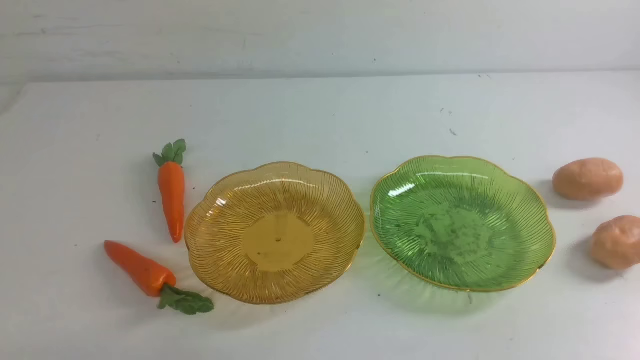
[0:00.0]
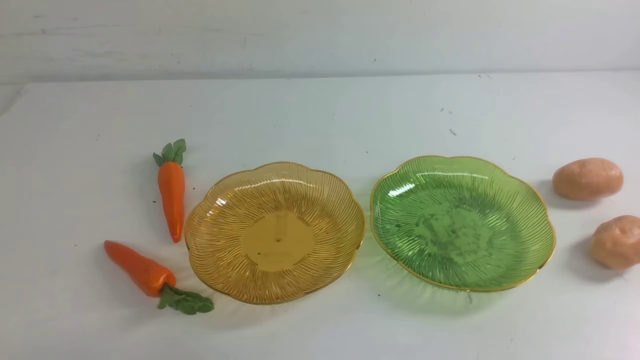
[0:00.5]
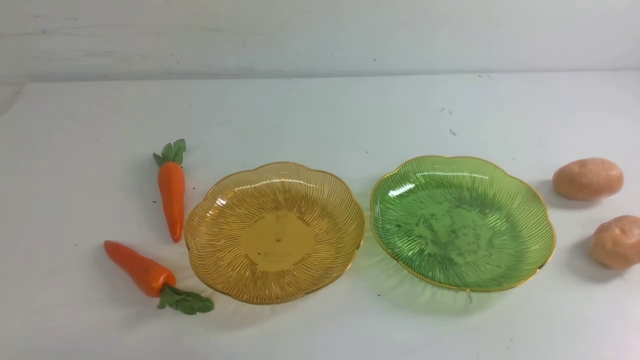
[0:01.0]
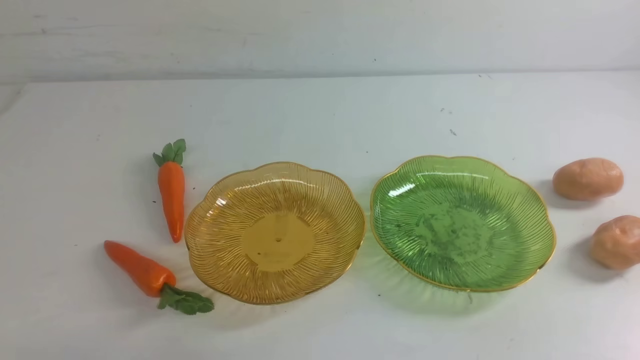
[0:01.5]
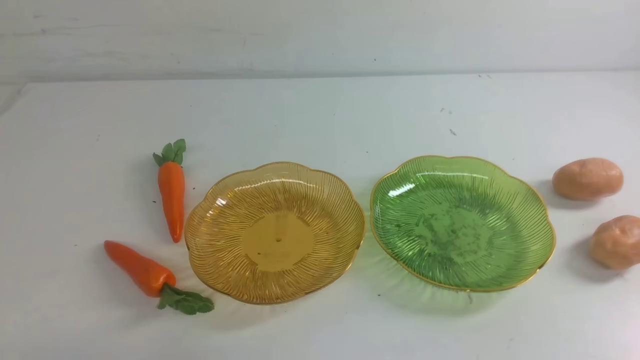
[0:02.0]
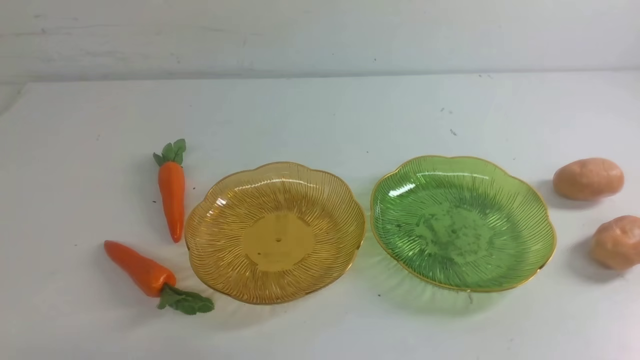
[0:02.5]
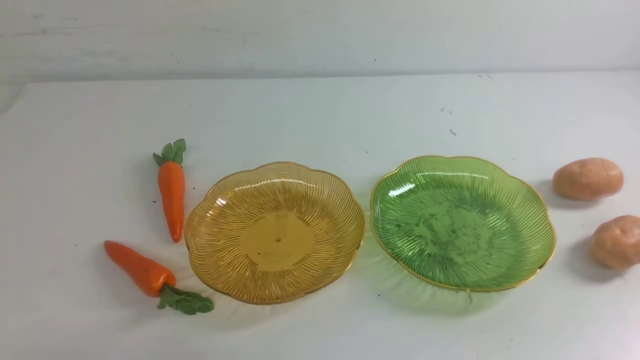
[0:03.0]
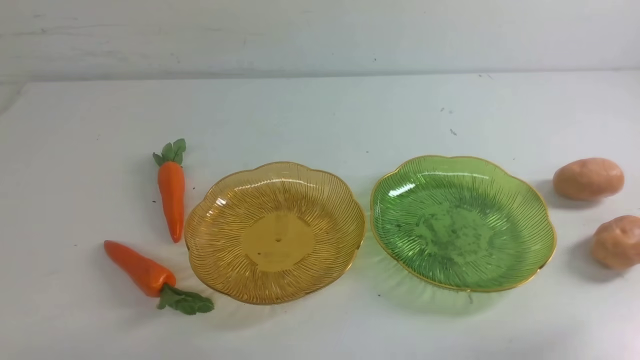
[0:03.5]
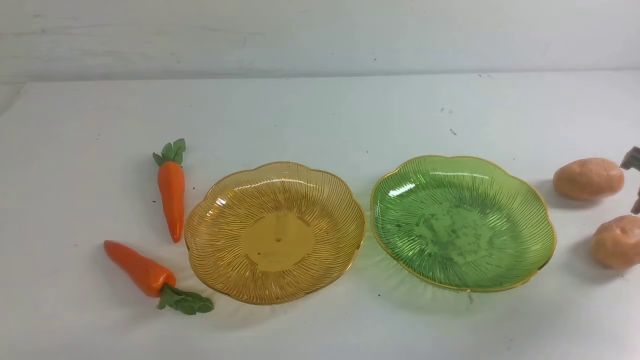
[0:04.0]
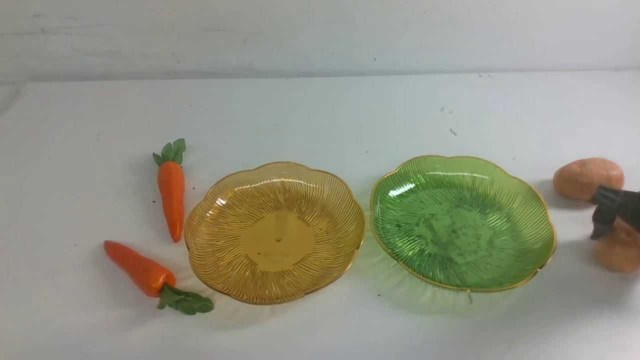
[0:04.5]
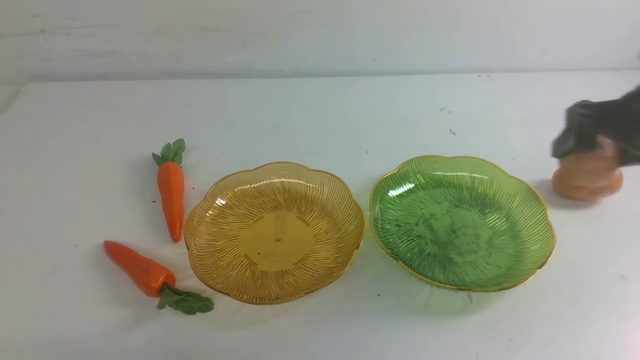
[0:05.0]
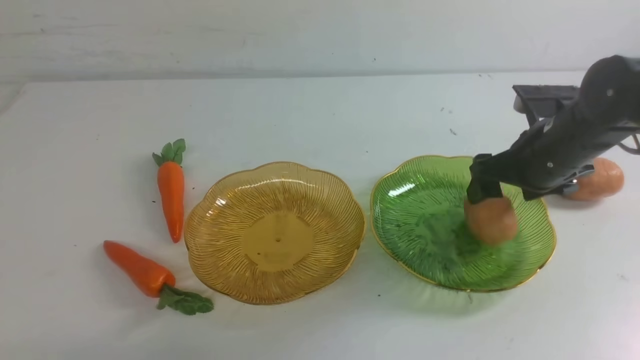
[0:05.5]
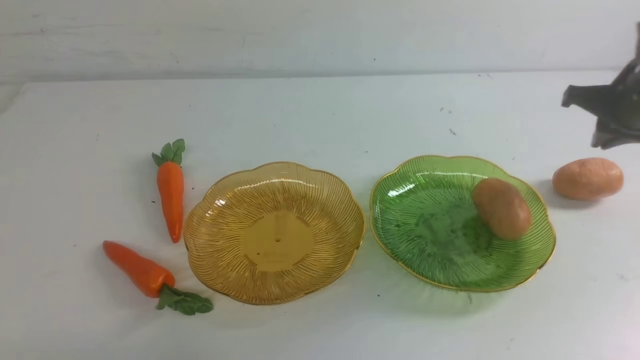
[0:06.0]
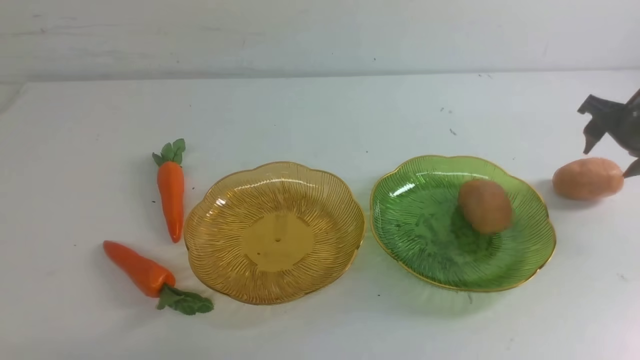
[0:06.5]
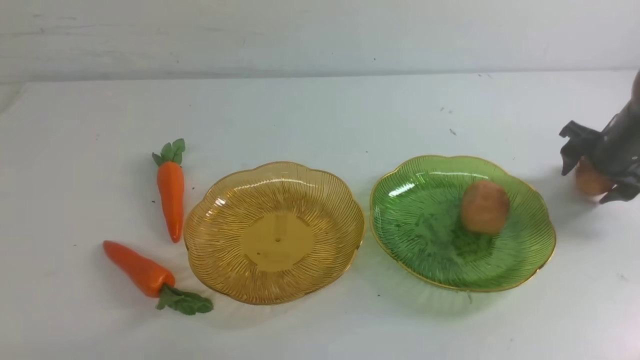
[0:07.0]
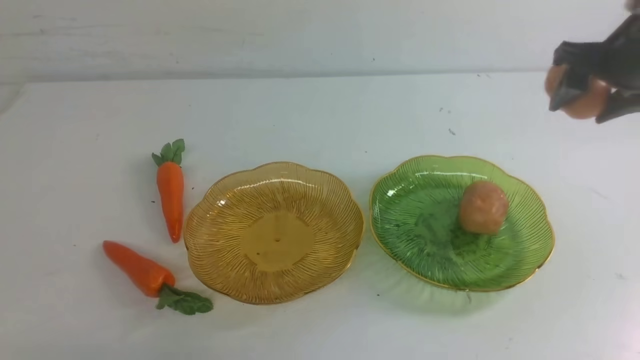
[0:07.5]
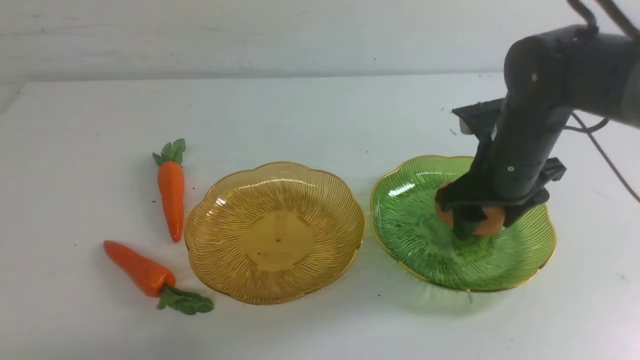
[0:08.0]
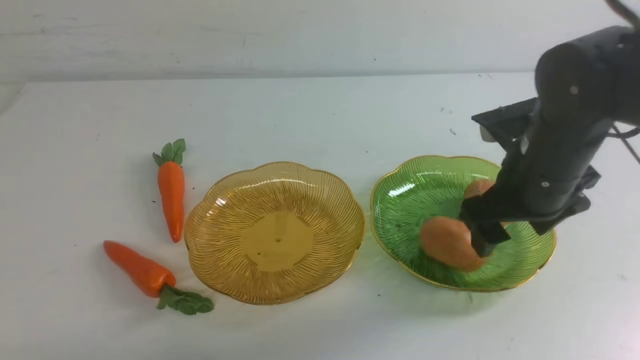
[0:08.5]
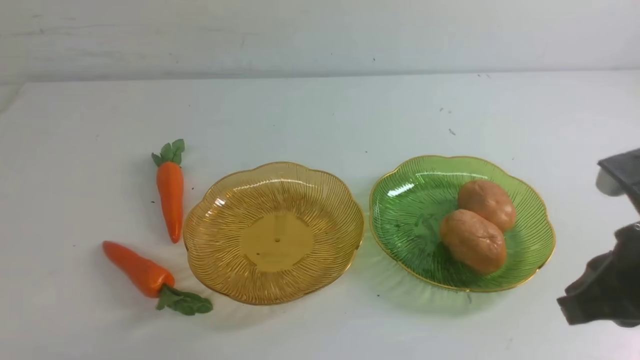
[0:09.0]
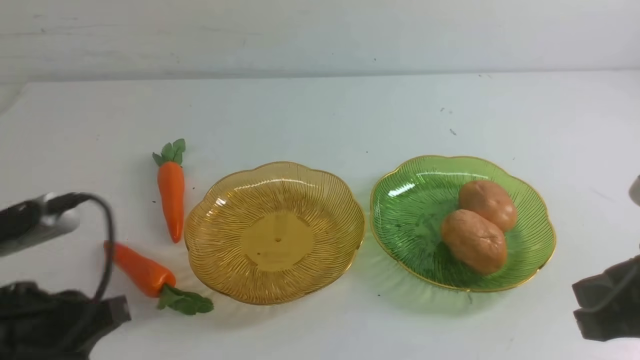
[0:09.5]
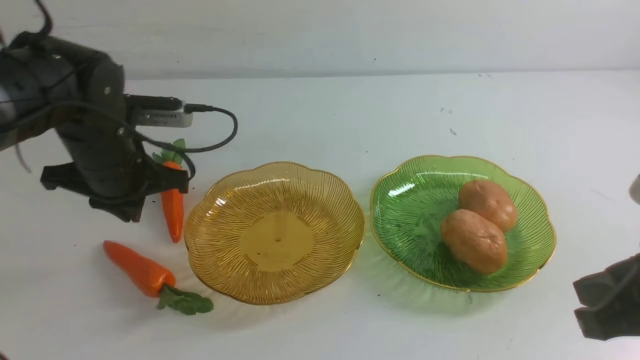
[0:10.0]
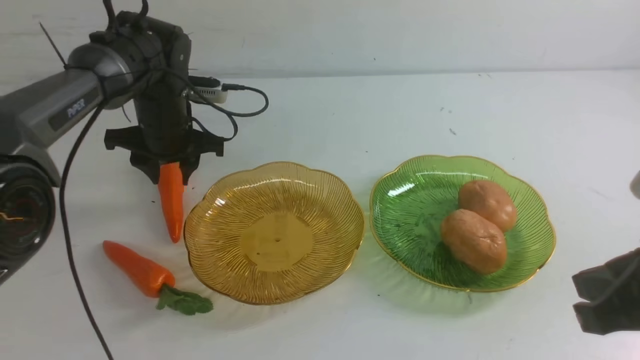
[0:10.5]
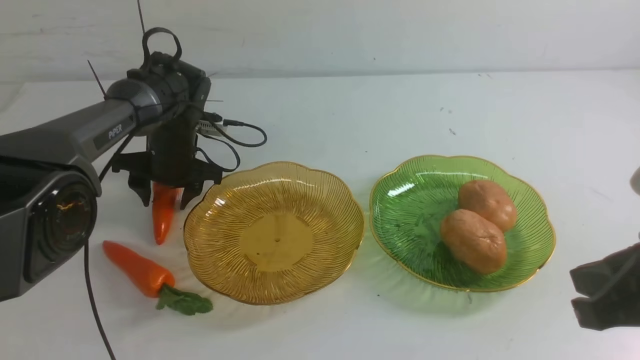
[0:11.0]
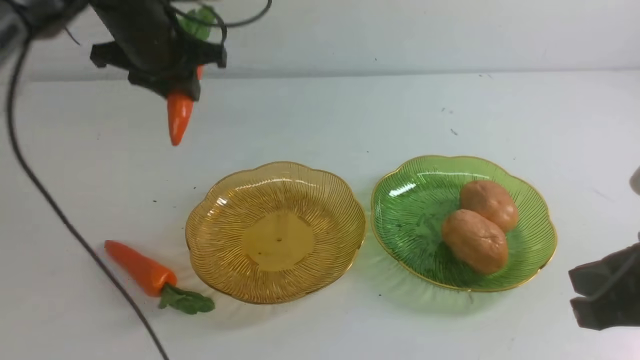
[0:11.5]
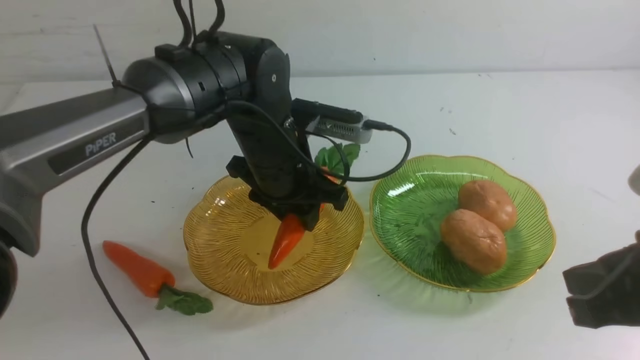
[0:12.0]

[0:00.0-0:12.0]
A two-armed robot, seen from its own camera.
Step, 0:00.0 to 0:08.0: Grab a potato with your right arm and put it on the right plate.
0:02.0 to 0:04.0: The right gripper shifts approximately 25 cm forward, and opens its fingers.
0:04.0 to 0:06.0: The right gripper shifts roughly 10 cm forward and to the left.
0:06.0 to 0:08.0: The right gripper travels to the left by some 15 cm, and opens up.
0:08.0 to 0:10.0: The right gripper moves backward, roughly 20 cm, and closes its fingers. Meanwhile the left gripper heads forward, covering some 35 cm.
0:10.0 to 0:12.0: The left gripper travels to the right by roughly 15 cm, and opens.

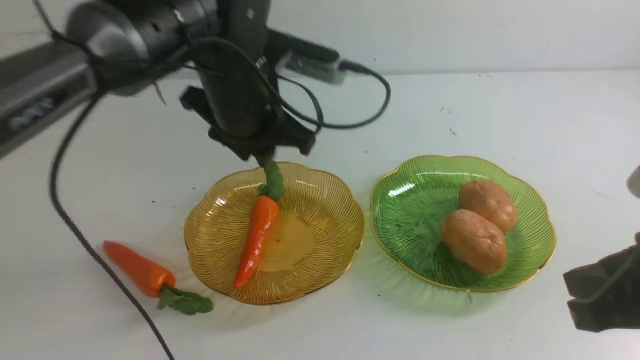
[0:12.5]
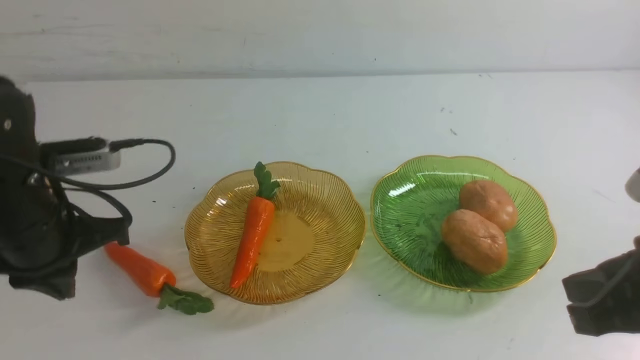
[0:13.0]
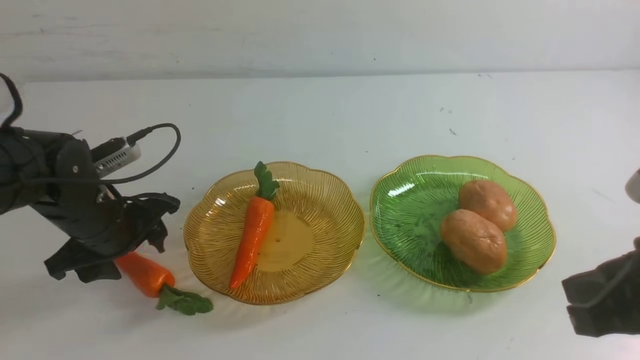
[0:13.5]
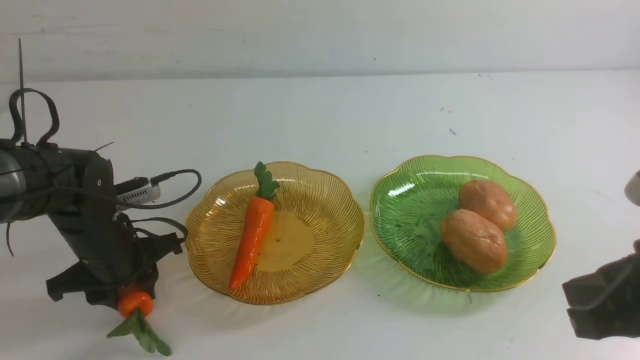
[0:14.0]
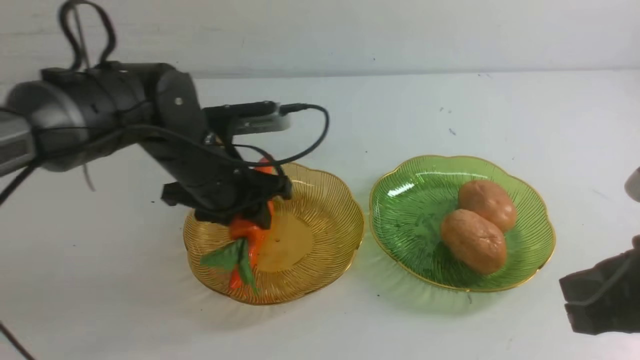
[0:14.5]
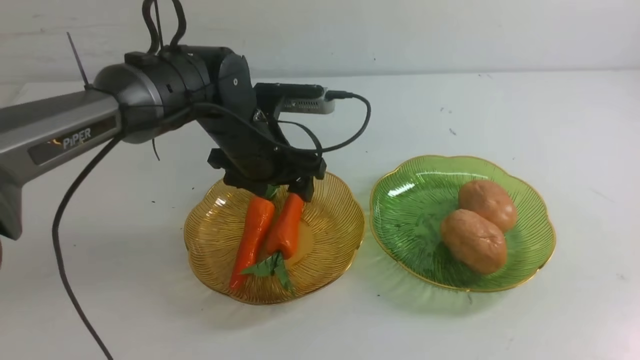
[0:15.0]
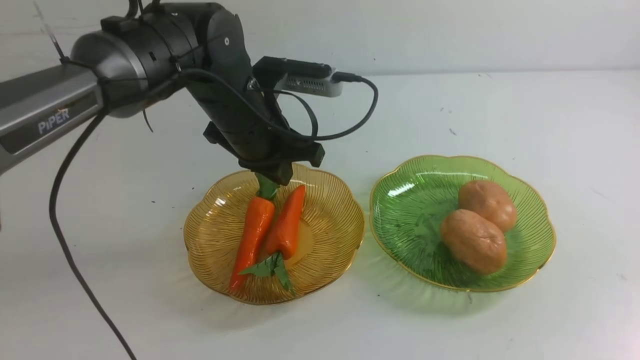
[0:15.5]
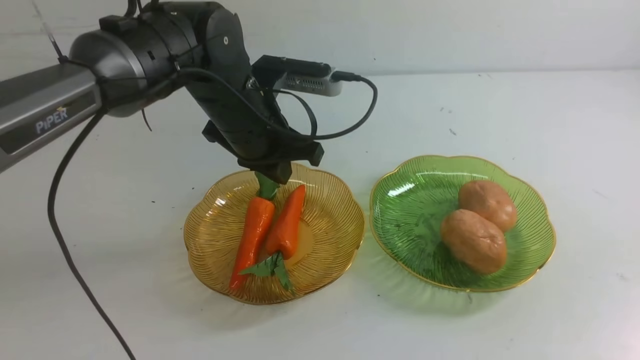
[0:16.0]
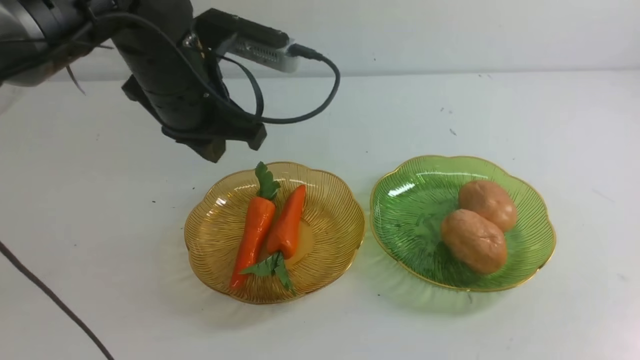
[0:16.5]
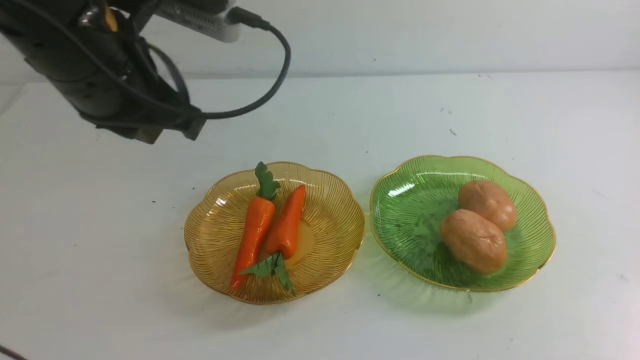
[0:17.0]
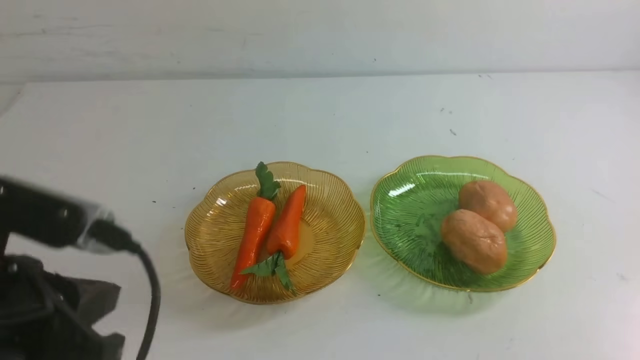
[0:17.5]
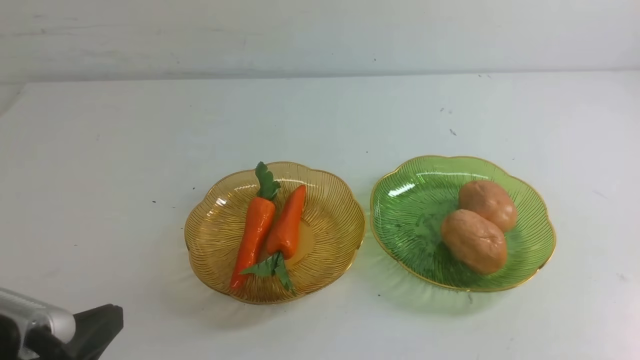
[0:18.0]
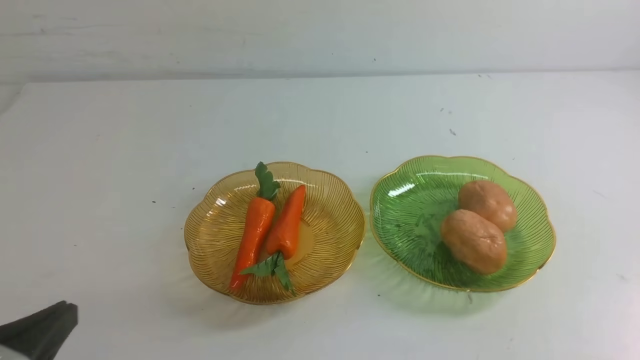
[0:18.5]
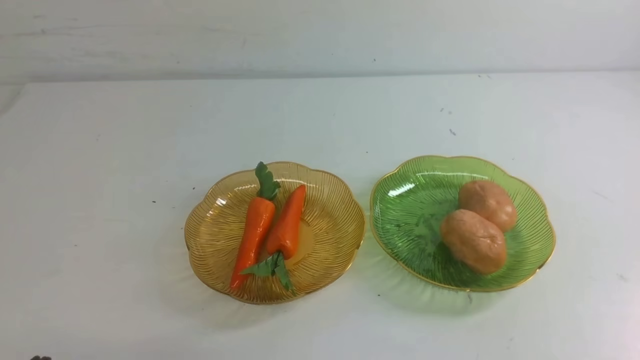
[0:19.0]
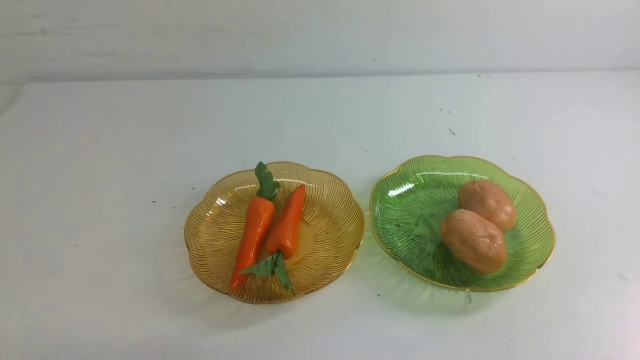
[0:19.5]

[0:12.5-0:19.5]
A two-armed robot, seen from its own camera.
Step, 0:12.5 to 0:14.5: use the left arm to grab a carrot and put it into the left plate.
0:12.5 to 0:14.5: The left gripper travels downward by approximately 5 cm, goes to the left and returns, approximately 15 cm each way, and opens, then closes once more.
0:14.5 to 0:16.0: The left gripper travels upward by approximately 10 cm, and closes. The right gripper heads backward and to the right, covering approximately 10 cm.
0:16.0 to 0:17.5: The left gripper travels backward and to the left by approximately 30 cm. Meanwhile the right gripper moves downward, about 10 cm.
0:17.5 to 0:19.5: The left gripper moves downward, some 10 cm.

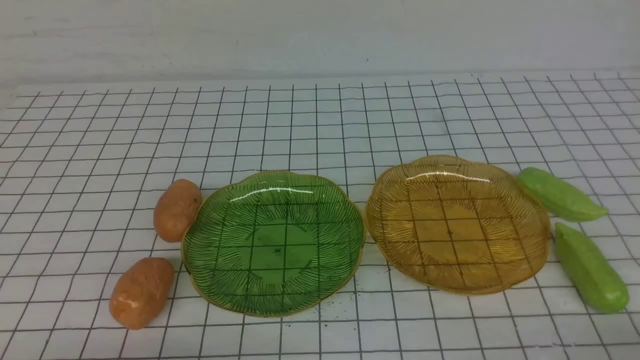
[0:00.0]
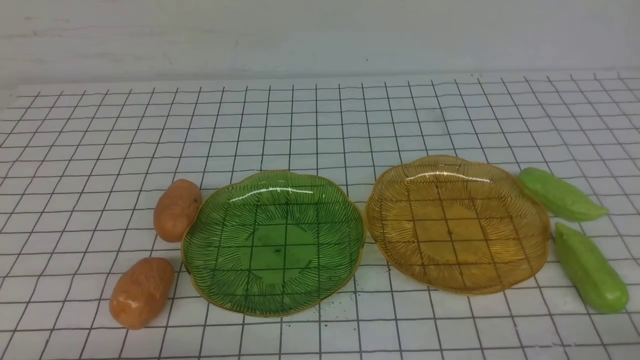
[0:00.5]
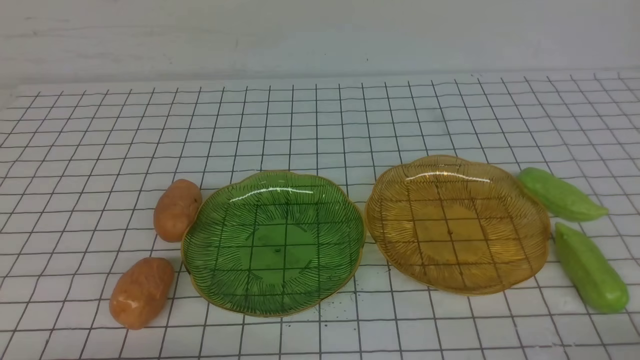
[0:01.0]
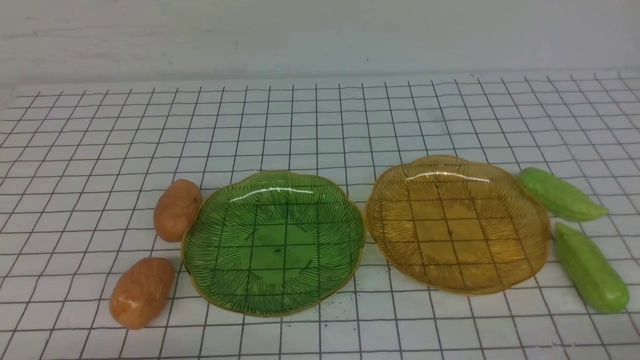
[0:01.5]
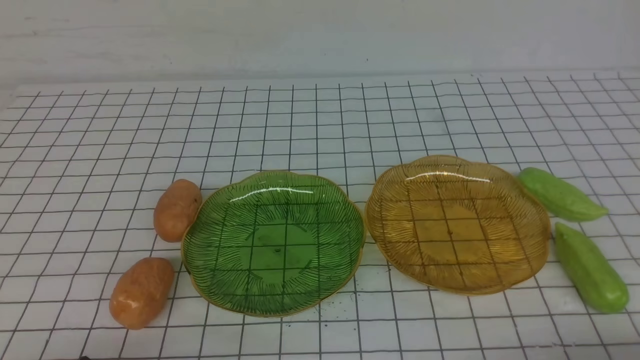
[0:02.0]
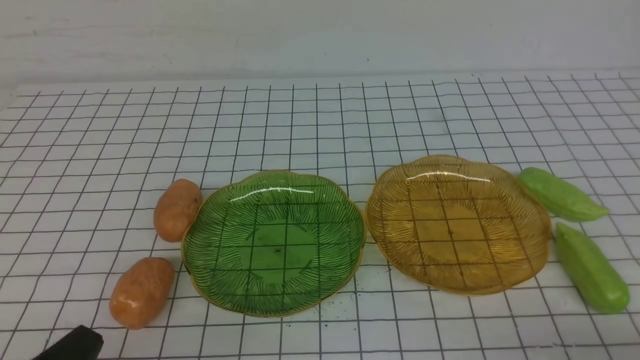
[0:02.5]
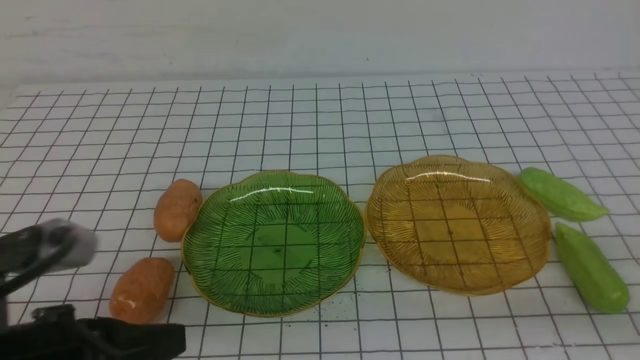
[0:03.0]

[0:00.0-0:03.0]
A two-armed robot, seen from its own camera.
0:00.0 to 0:01.5: The two grippers keep their place.
0:01.5 to 0:03.0: The left gripper heads upward, forward and to the right, covering about 15 cm. The right gripper goes some 10 cm upward and forward.
